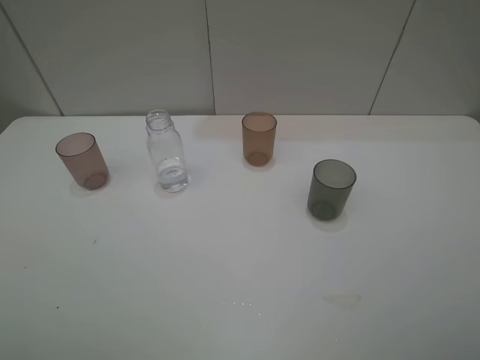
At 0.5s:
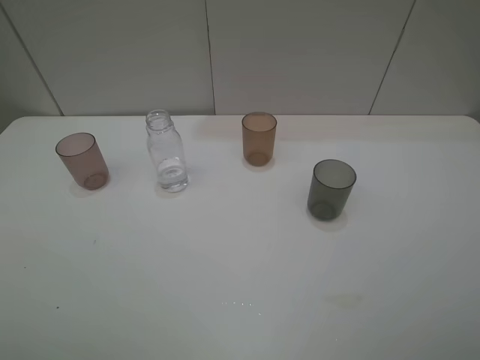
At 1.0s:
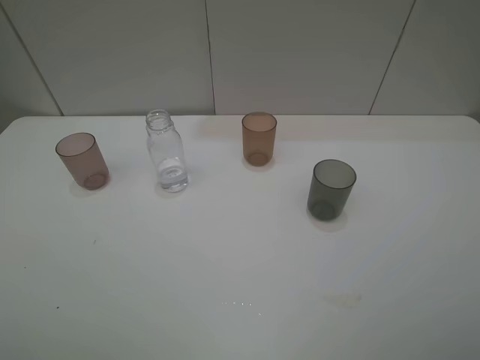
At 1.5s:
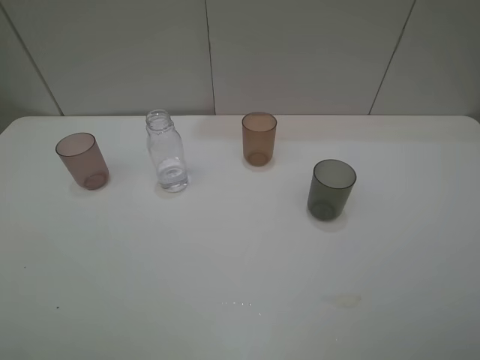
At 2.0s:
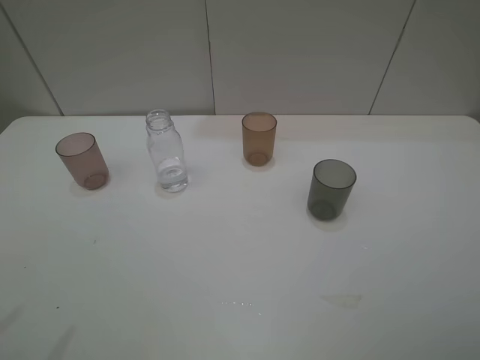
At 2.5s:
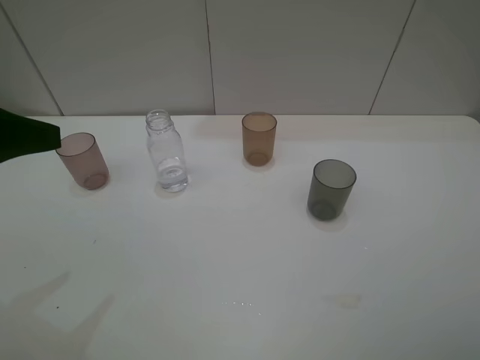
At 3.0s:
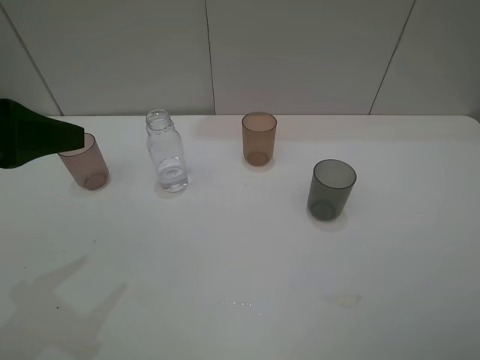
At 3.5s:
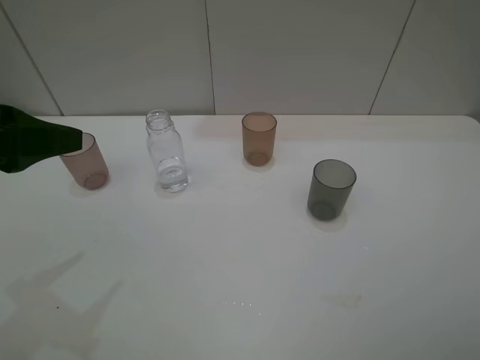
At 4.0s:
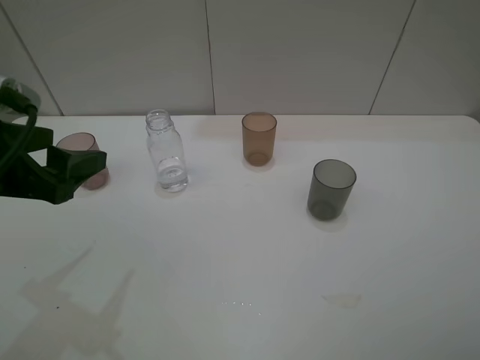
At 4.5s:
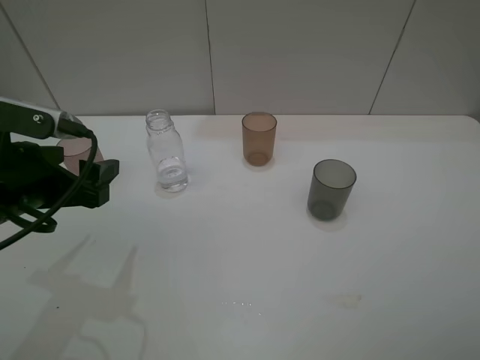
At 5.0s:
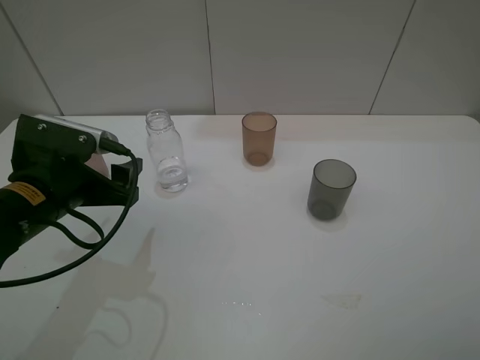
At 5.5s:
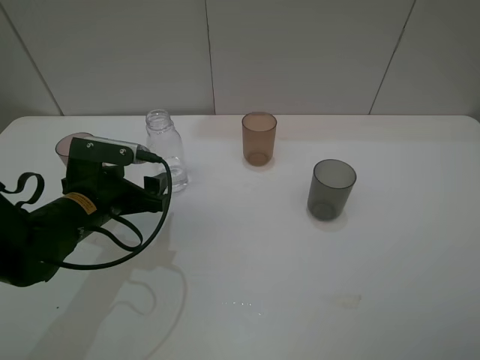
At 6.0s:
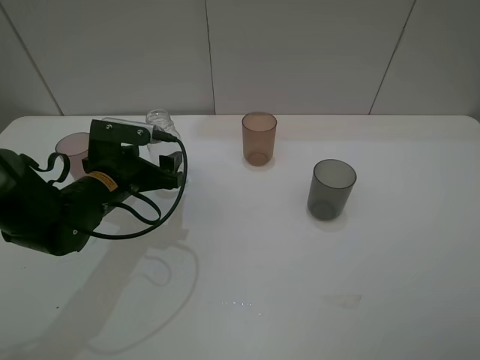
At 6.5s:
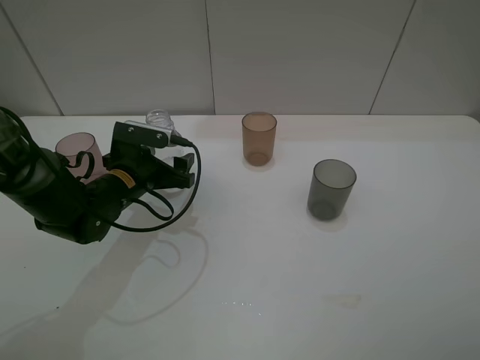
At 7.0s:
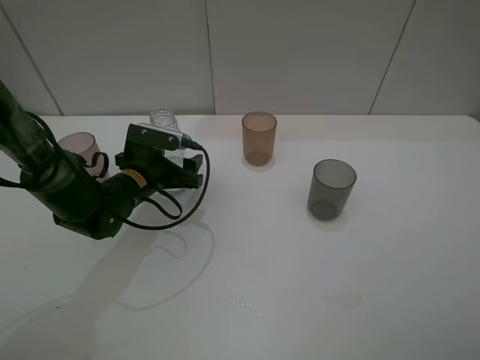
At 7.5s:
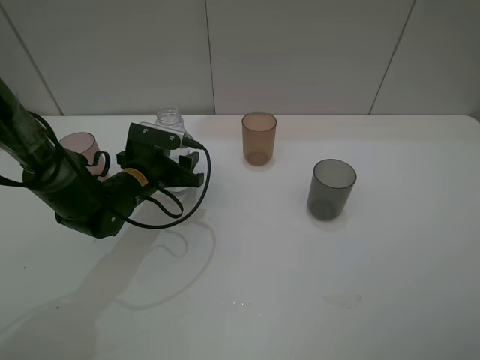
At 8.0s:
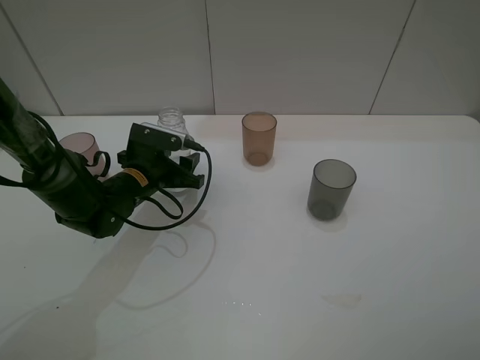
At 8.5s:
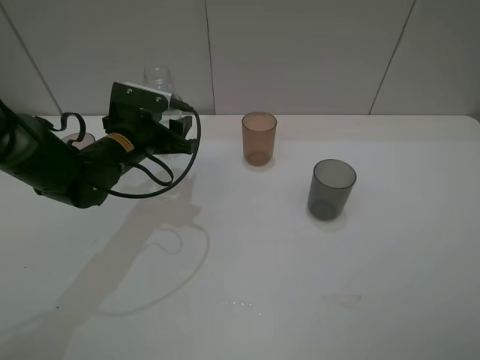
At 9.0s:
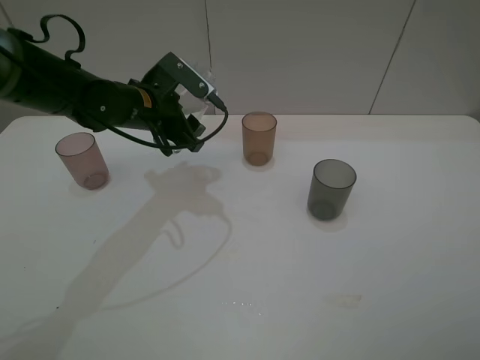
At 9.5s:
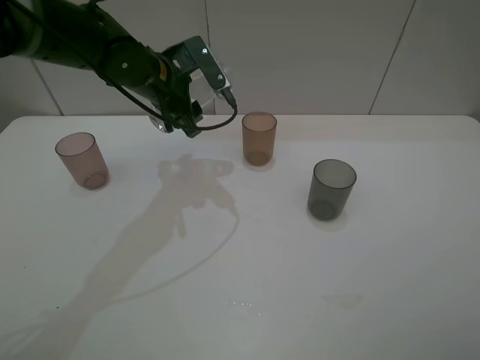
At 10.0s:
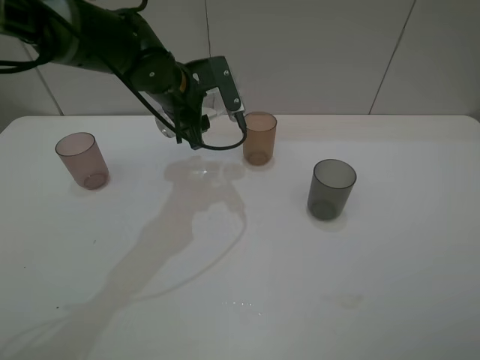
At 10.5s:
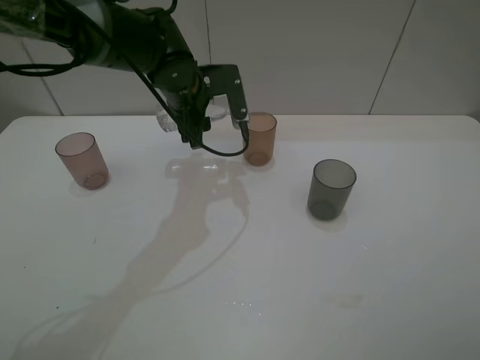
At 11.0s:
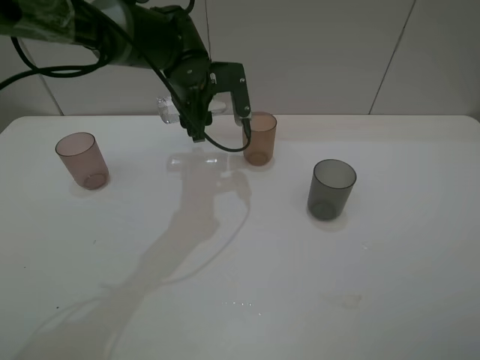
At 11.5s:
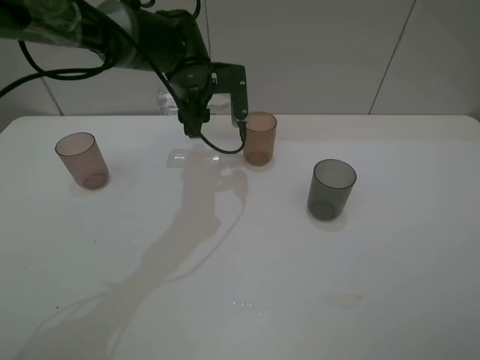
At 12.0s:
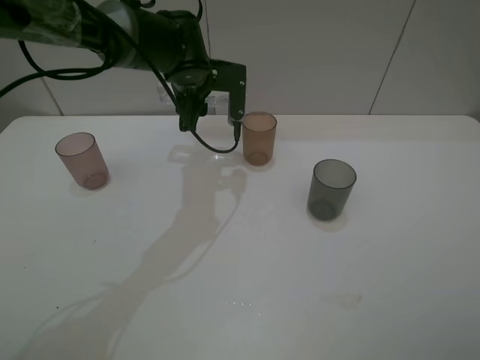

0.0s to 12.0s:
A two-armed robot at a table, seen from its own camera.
Task of the whole recording: pick up the bottle filled with water and pour water into the middle cup of the three cups.
Step, 0.0s to 7.5s: Grasp the transparent bottle with the left gripper.
2.0s to 4.0s: The left gripper is displaced downward and forward by some 10 cm.
4.0s to 6.0s: The left gripper shifts approximately 20 cm downward, forward and to the right.
6.0s to 8.0s: The left gripper changes place by about 5 cm, and closes its fingers.
8.0s to 10.0s: The left gripper goes approximately 15 cm upward, forward and to the right.

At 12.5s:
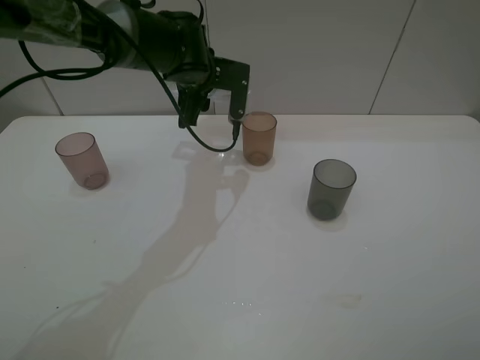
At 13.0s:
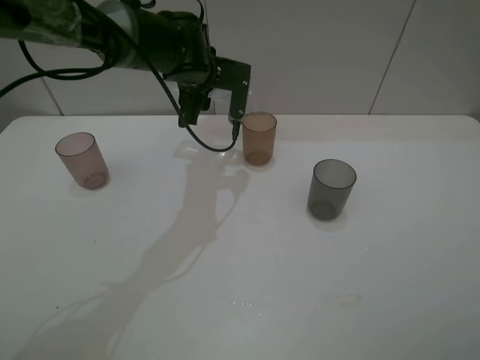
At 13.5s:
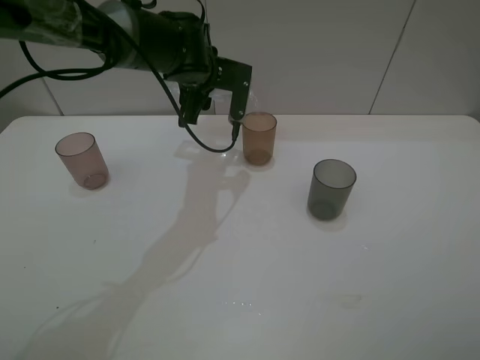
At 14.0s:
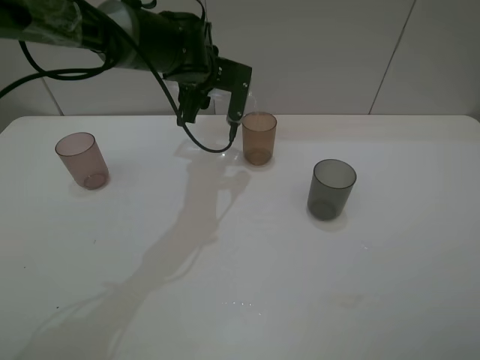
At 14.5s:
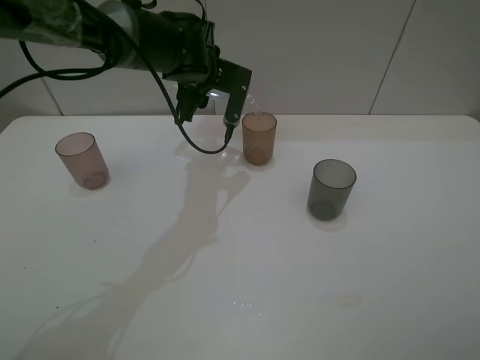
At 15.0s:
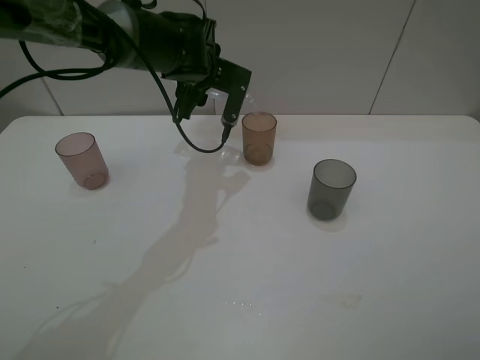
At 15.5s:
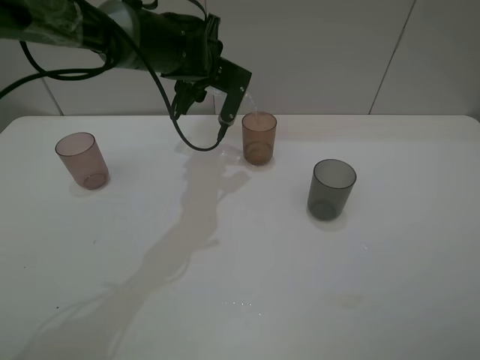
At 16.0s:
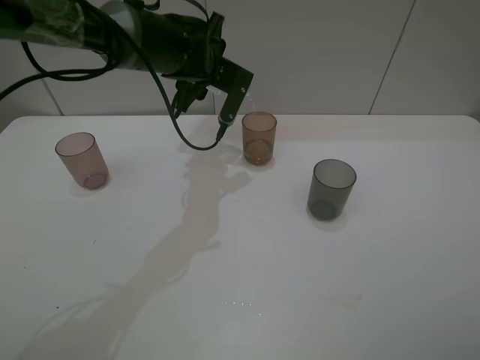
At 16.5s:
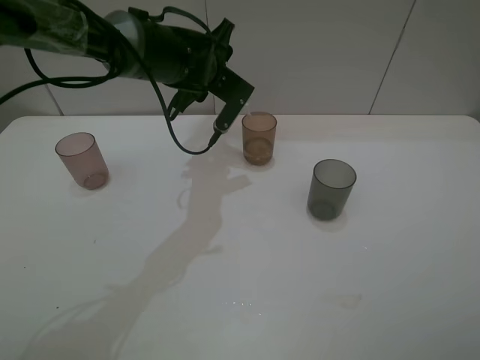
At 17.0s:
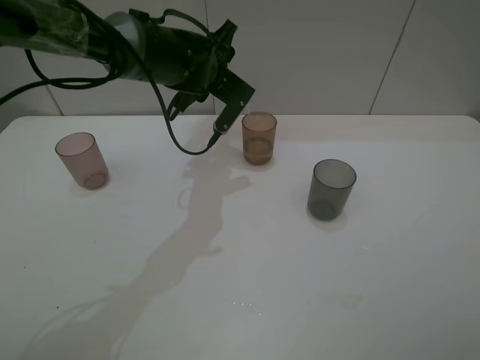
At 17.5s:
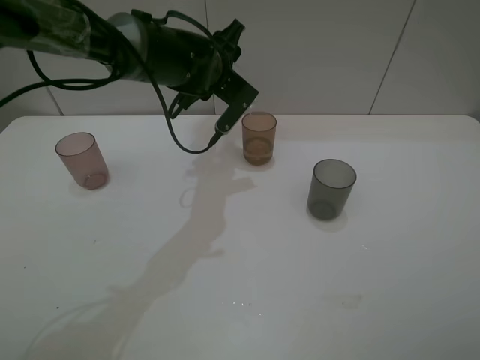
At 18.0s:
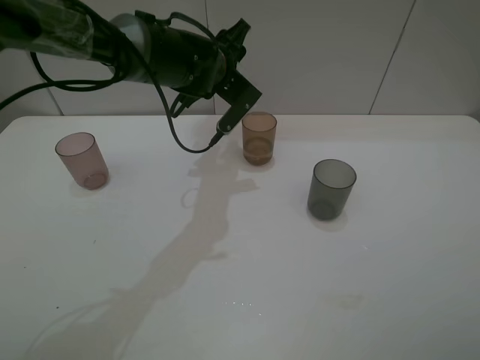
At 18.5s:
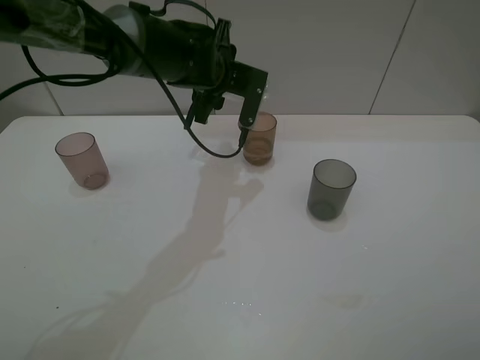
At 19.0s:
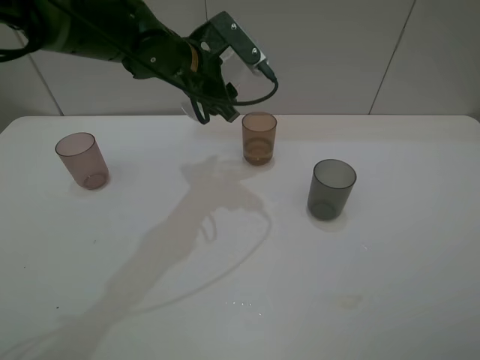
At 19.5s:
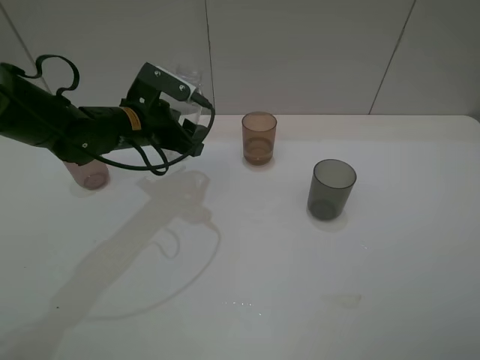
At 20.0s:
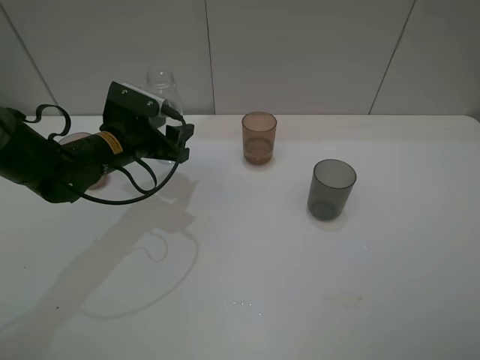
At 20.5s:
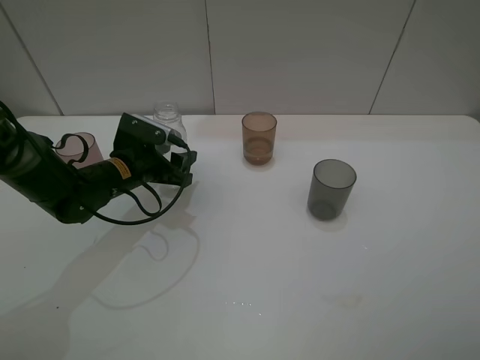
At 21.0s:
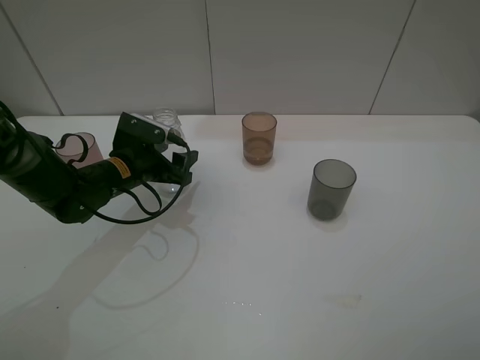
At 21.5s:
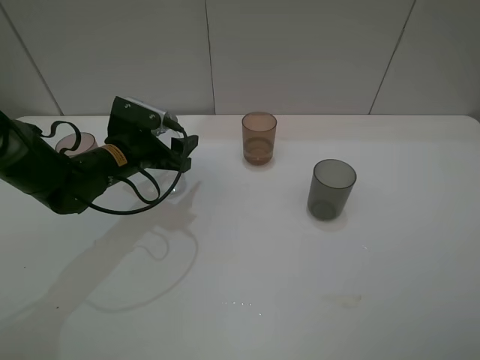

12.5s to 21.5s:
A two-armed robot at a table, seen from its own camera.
Task of the whole recording: pick up the bottle filled with water and pour water into the middle cup of the three cups.
Step, 12.5s to 18.0s: Pour water from transparent bottle to brown cup with the left gripper.
12.5s to 14.5s: The grippers stay close to where they were, moving slightly.
17.0s to 19.5s: The left gripper goes about 15 cm to the left and backward.
19.5s to 21.5s: The left gripper moves some 5 cm, and opens its fingers.

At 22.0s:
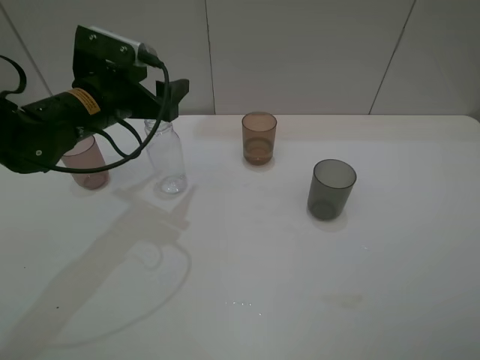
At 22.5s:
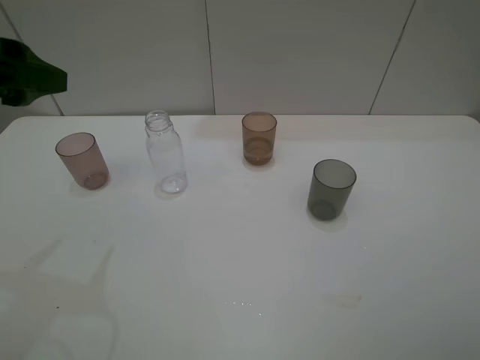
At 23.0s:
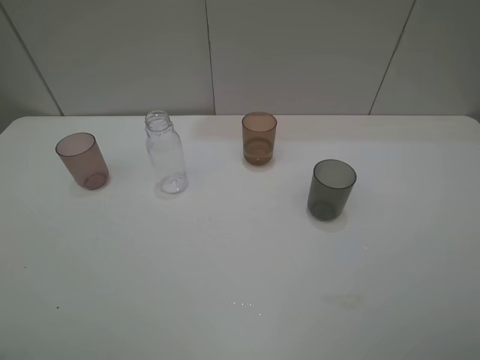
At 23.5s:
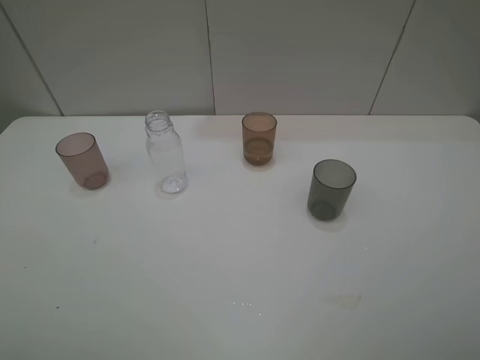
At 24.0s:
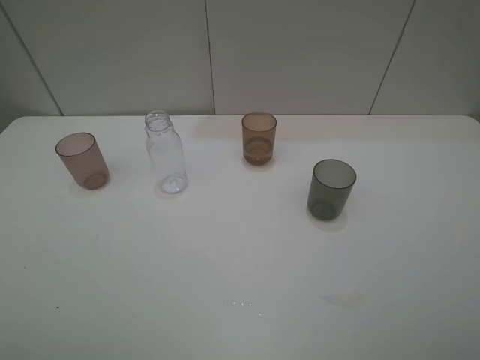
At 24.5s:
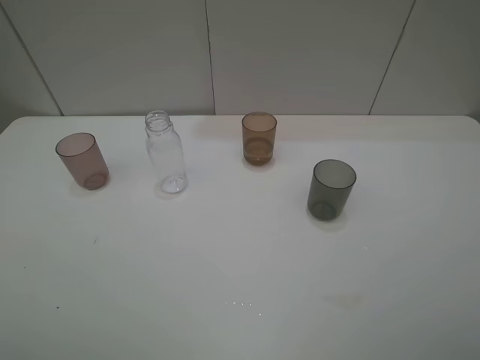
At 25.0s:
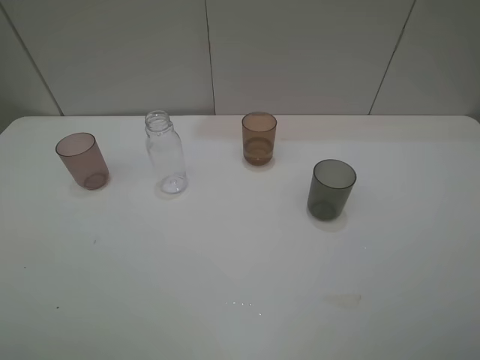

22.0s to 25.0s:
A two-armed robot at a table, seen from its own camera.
Task of the whole recording: pick up the bottle filled with water and pour water into the middle cup of the three cups.
22.0s to 23.5s: The left gripper heads backward, covering about 35 cm.

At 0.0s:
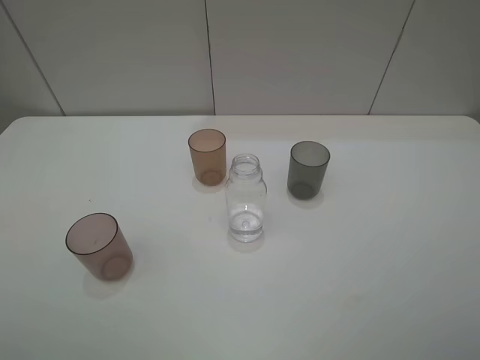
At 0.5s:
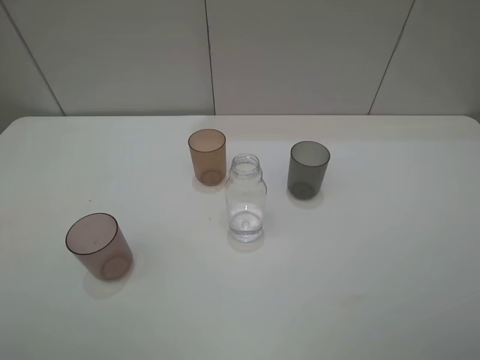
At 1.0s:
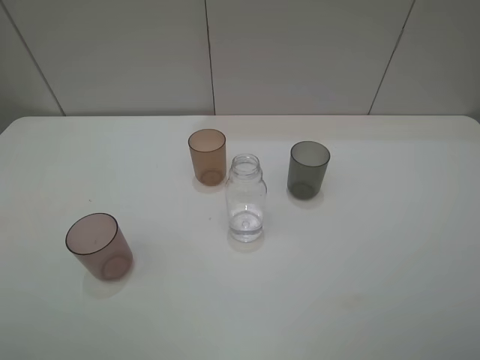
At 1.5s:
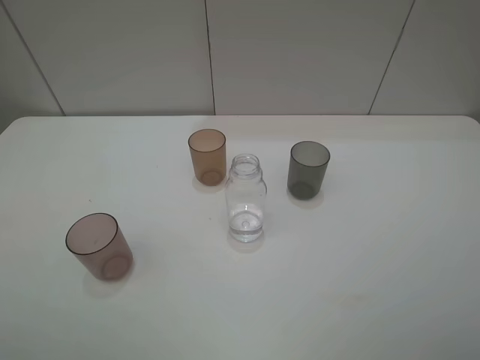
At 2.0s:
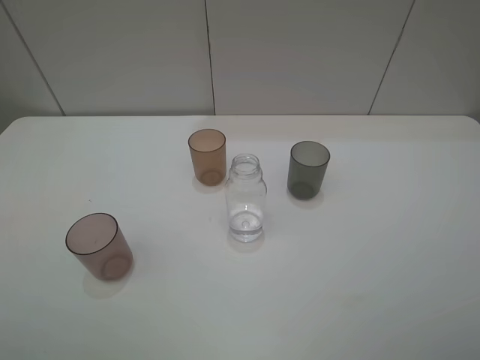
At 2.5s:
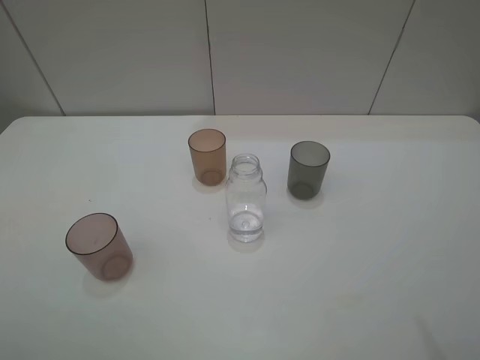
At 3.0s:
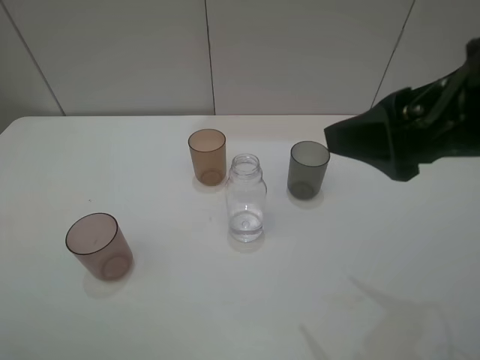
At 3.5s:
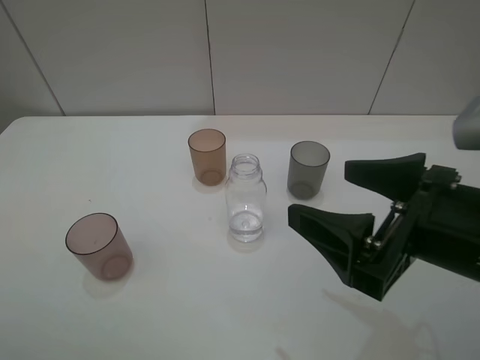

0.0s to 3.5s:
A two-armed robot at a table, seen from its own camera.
Task of the whole recording: pick up the bottle filled with water and pour water into the middle cup of the three cups.
0.0s to 2.0s: Both grippers stay put.
2.0s to 3.5s: The right gripper is displaced to the left, forward and downward by some 20 cm.
